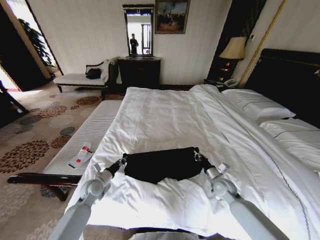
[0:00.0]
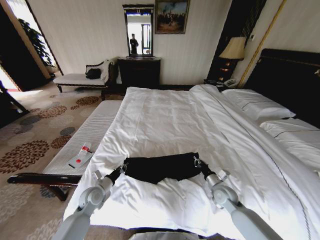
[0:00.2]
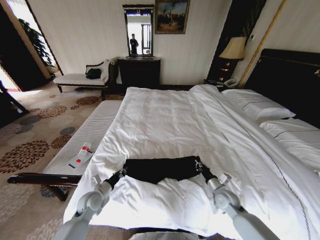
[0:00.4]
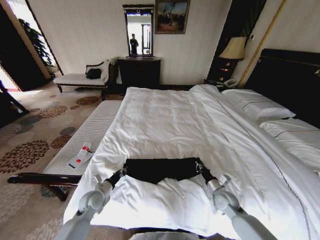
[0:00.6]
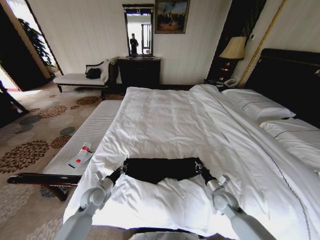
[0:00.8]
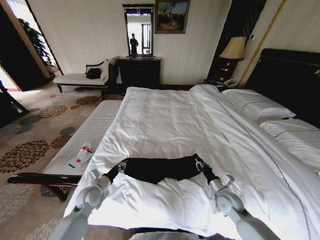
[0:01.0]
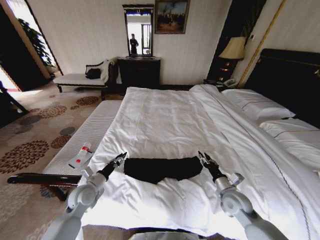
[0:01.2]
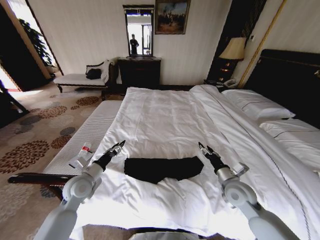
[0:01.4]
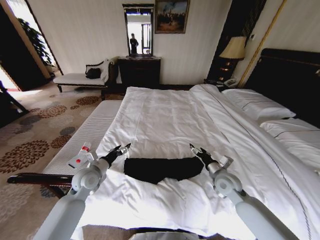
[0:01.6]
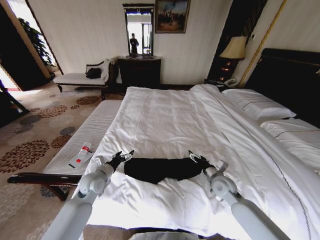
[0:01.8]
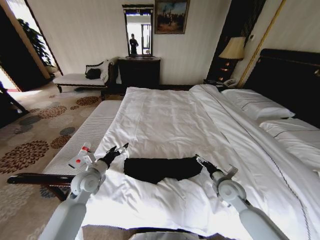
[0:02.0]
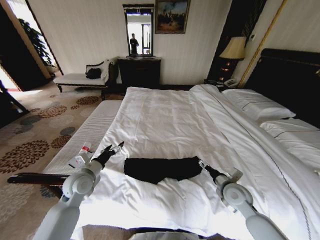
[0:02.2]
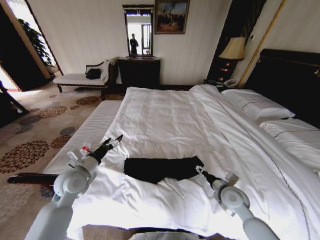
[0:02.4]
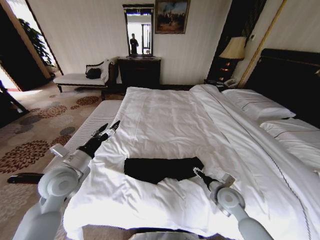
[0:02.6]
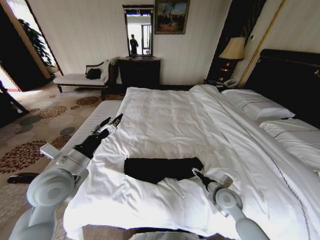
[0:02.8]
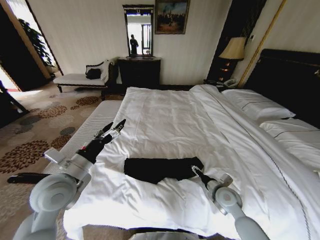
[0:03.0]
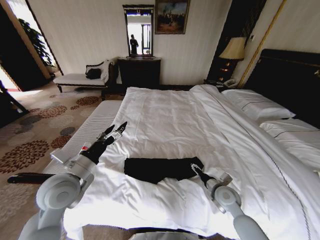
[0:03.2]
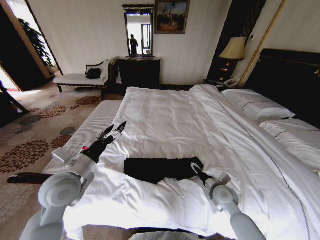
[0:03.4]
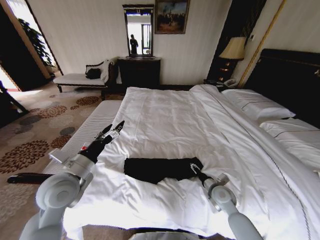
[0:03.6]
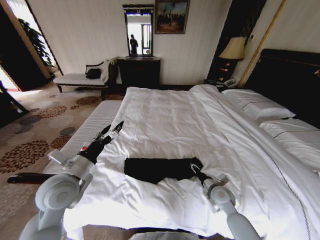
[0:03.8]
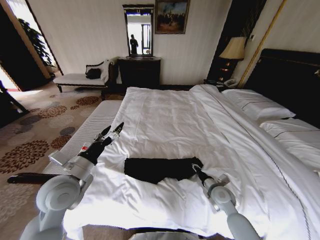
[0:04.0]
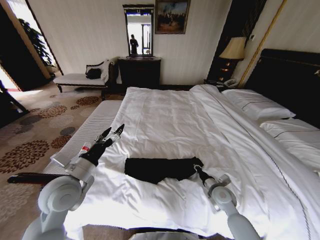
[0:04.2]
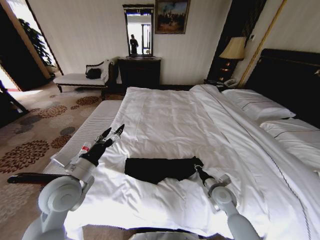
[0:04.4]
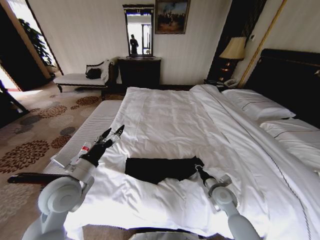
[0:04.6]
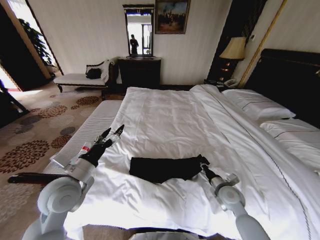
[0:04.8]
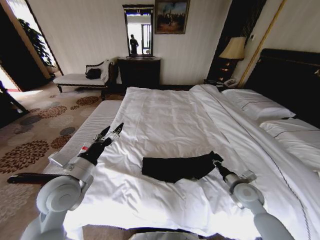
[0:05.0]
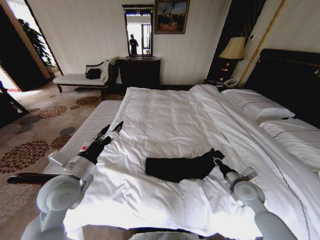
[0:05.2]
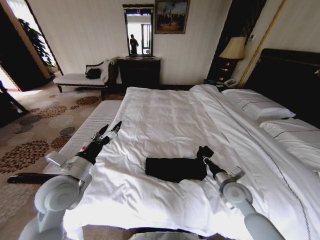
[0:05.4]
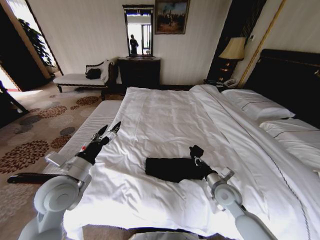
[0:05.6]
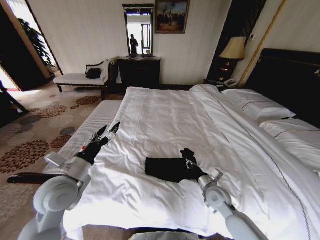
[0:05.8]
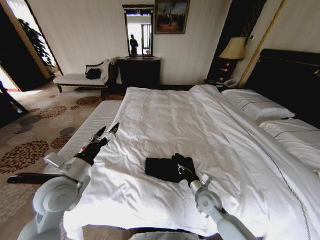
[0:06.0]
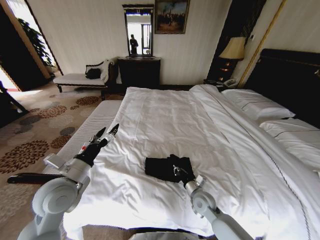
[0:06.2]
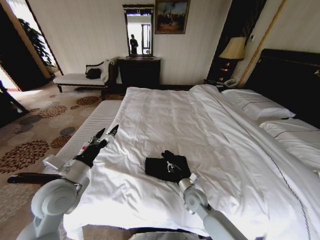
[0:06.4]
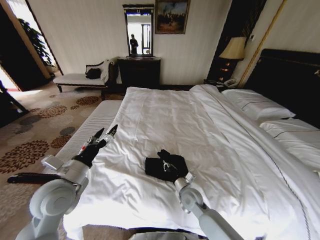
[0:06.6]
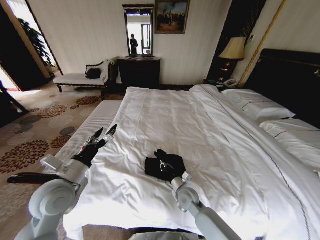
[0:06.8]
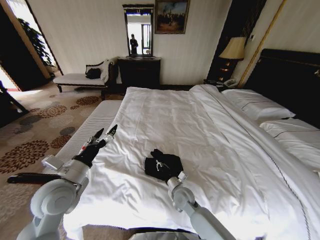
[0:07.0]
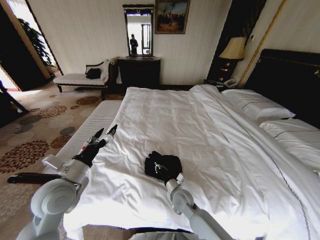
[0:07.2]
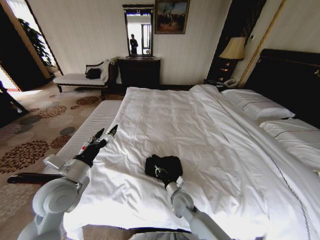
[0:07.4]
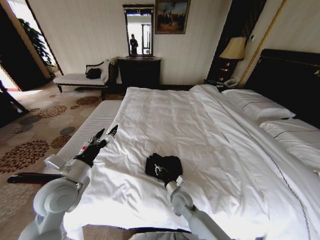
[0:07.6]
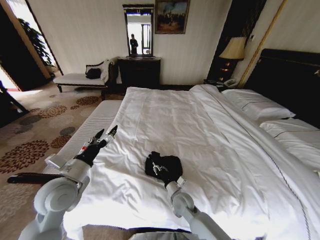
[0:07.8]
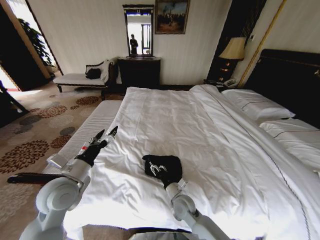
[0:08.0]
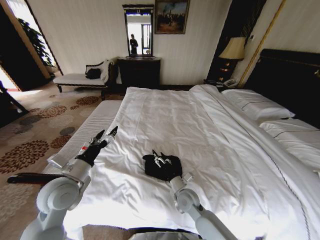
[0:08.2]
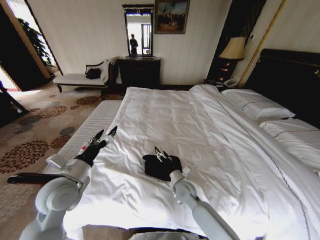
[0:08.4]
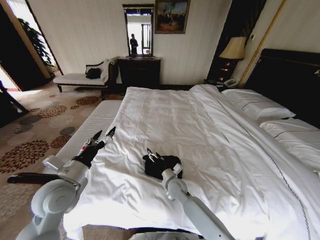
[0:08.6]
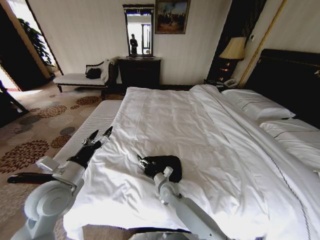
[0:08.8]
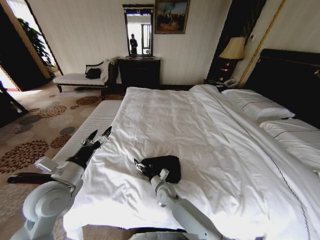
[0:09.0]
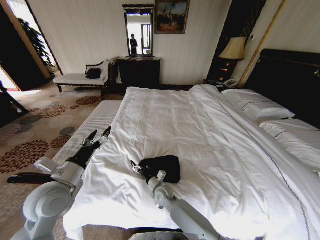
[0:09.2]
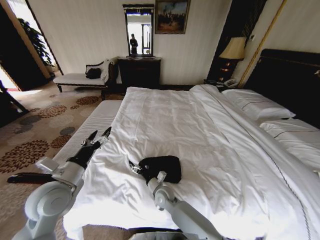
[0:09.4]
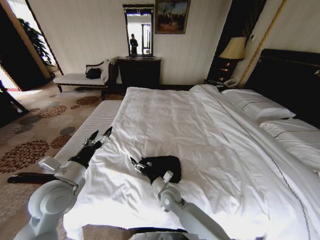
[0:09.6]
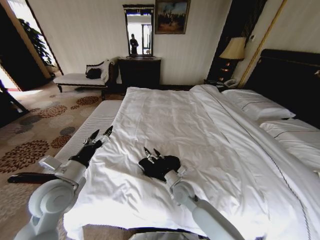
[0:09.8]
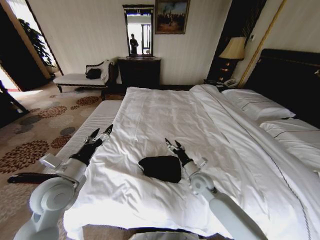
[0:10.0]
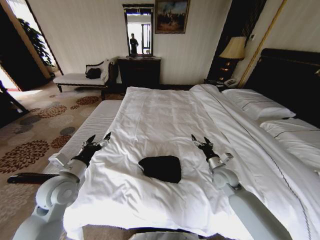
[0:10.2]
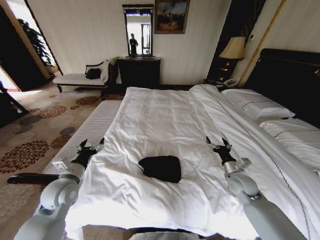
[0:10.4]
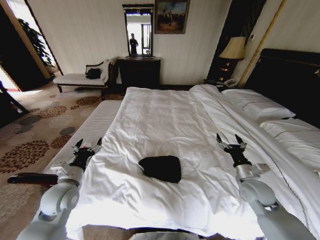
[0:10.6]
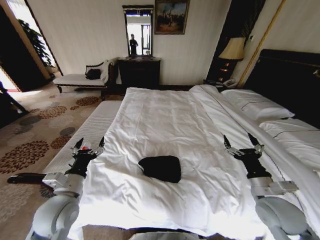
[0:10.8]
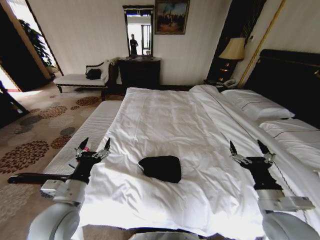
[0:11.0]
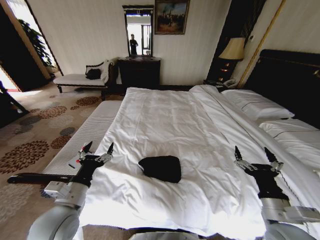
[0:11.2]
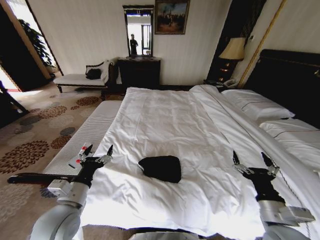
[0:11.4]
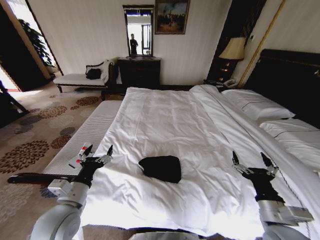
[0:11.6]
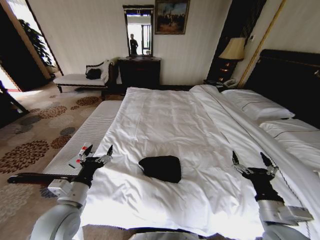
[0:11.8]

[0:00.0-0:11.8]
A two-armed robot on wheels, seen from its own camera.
Task of the whole recording: Fold the clothes on the bed.
0:00.0 to 0:01.4: The right gripper goes roughly 10 cm upward and backward, and opens. The left gripper heads upward, covering approximately 10 cm, and opens its fingers.
0:01.4 to 0:03.0: The right gripper is displaced downward by some 5 cm, and opens its fingers, while the left gripper moves upward and backward, about 15 cm, and opens its fingers.
0:03.0 to 0:04.4: The right gripper closes.
0:04.4 to 0:06.0: The right gripper heads to the left, covering about 5 cm.
0:06.0 to 0:07.4: The right gripper shifts roughly 10 cm to the left.
0:07.4 to 0:08.8: The right gripper is displaced to the left and forward by approximately 10 cm, and opens its fingers.
0:08.8 to 0:10.4: The right gripper is displaced to the right by about 30 cm; the left gripper goes roughly 5 cm downward.
0:10.4 to 0:11.8: The left gripper shifts about 10 cm backward and to the right. Meanwhile the right gripper goes approximately 20 cm backward.
